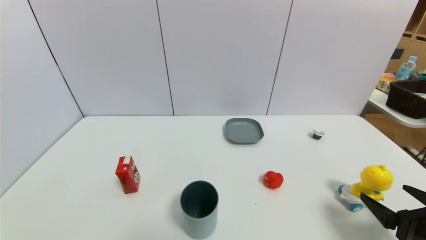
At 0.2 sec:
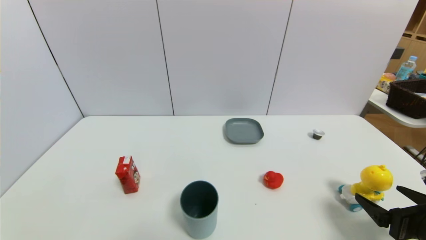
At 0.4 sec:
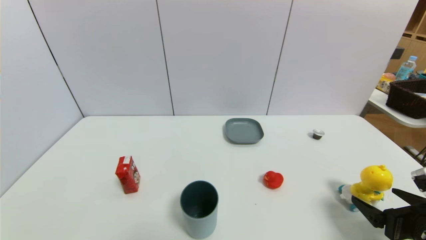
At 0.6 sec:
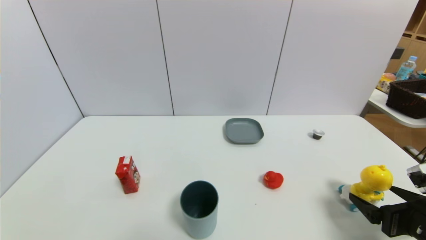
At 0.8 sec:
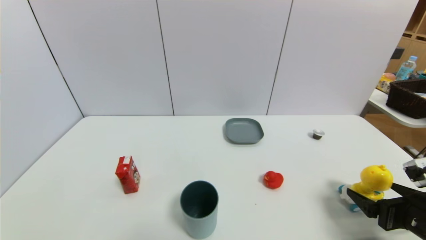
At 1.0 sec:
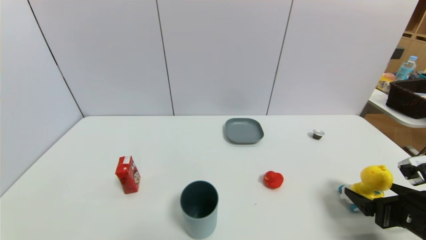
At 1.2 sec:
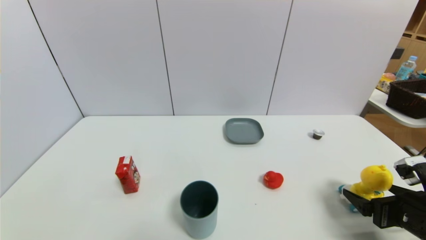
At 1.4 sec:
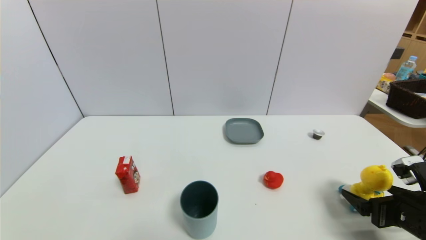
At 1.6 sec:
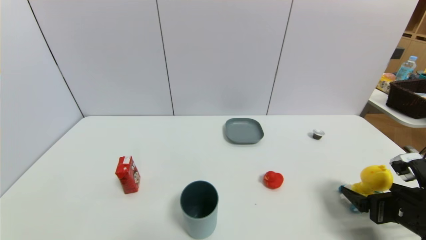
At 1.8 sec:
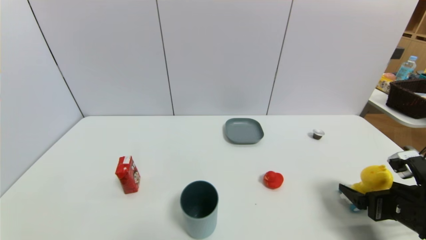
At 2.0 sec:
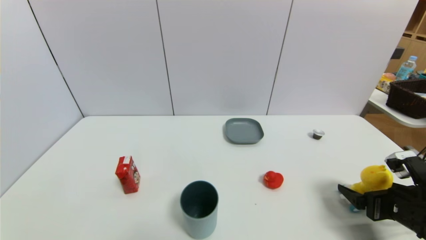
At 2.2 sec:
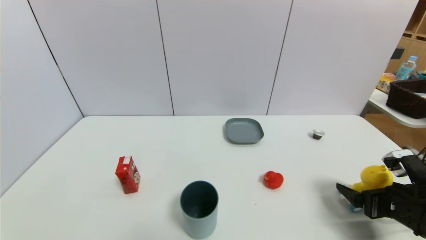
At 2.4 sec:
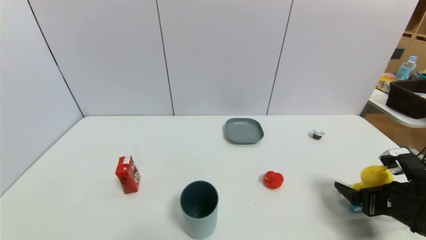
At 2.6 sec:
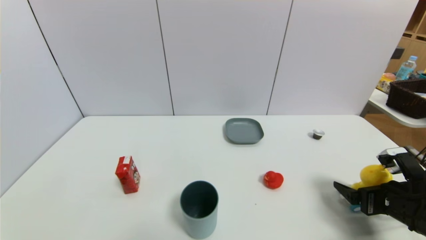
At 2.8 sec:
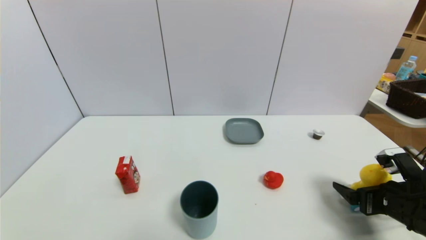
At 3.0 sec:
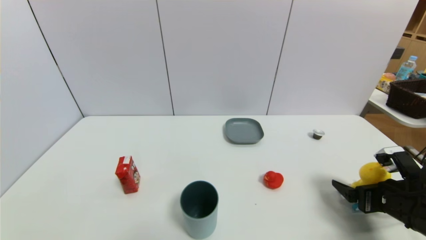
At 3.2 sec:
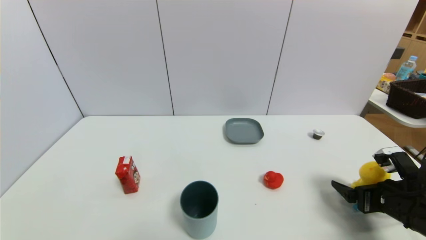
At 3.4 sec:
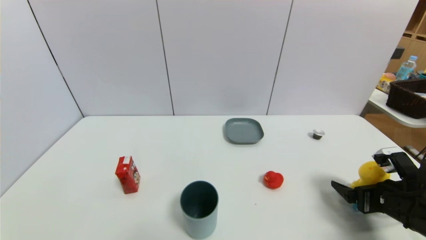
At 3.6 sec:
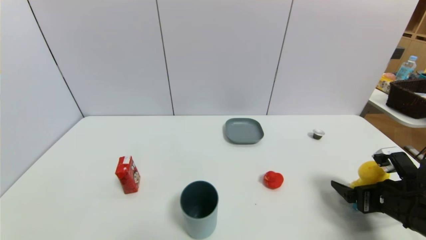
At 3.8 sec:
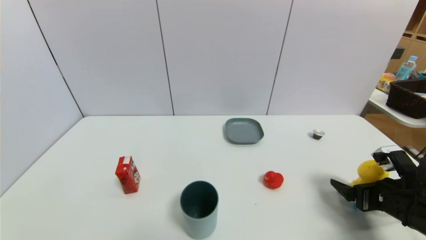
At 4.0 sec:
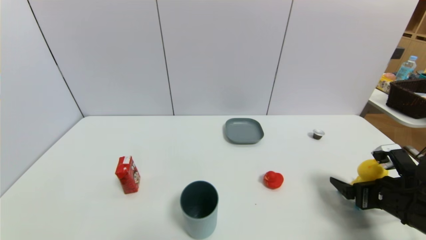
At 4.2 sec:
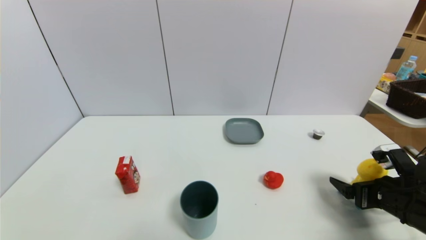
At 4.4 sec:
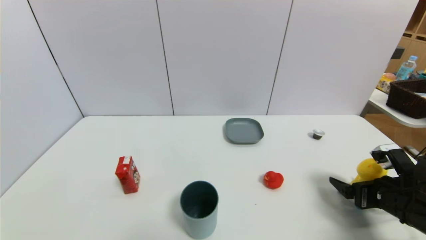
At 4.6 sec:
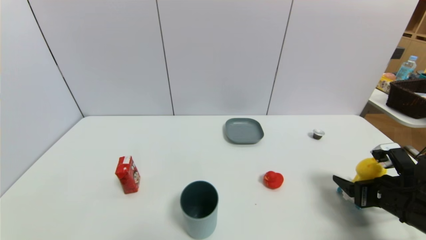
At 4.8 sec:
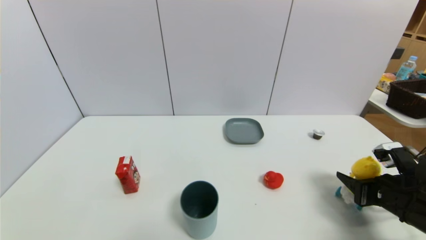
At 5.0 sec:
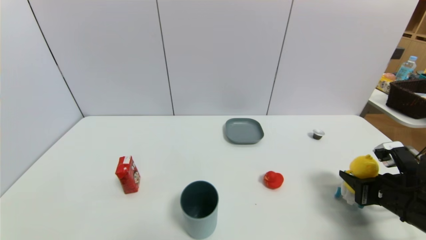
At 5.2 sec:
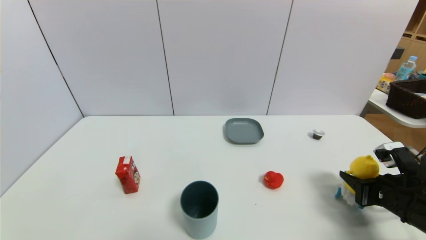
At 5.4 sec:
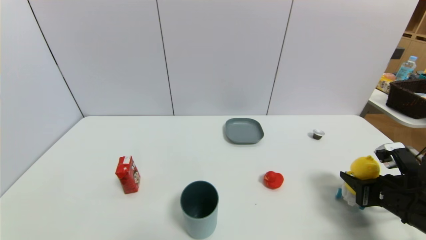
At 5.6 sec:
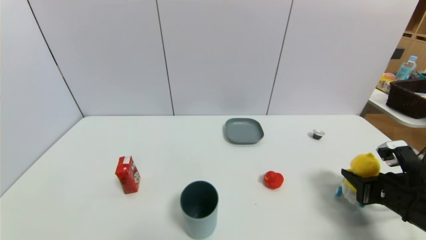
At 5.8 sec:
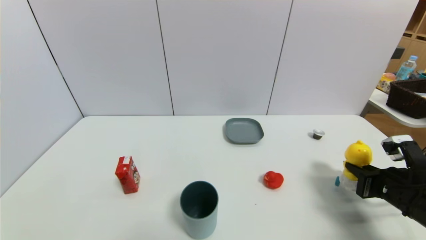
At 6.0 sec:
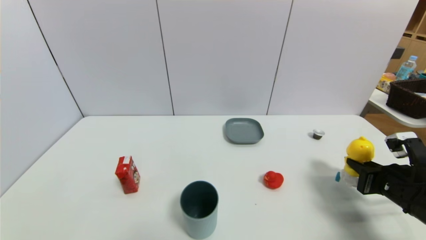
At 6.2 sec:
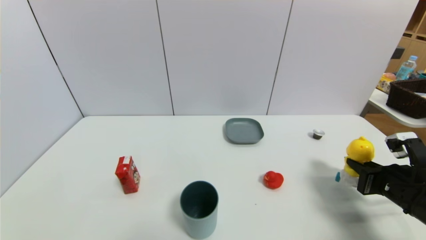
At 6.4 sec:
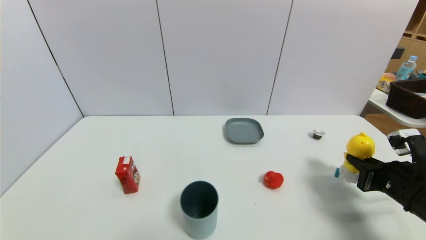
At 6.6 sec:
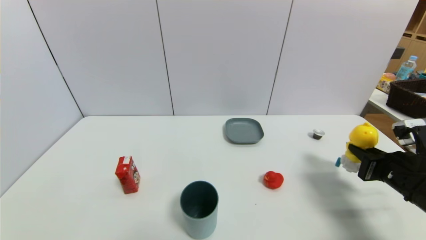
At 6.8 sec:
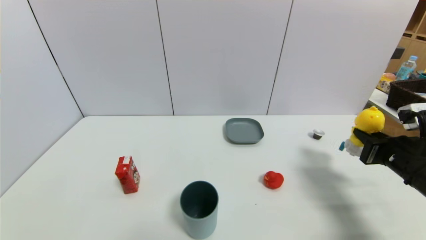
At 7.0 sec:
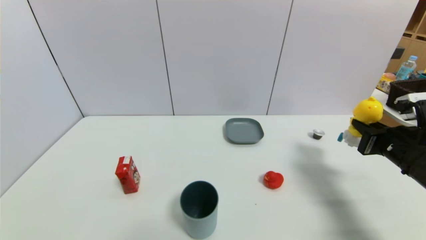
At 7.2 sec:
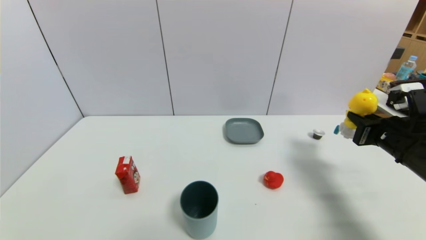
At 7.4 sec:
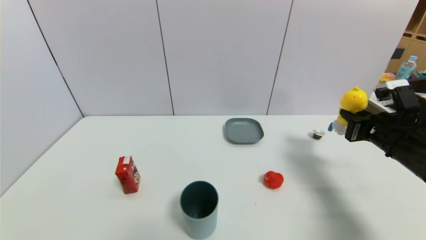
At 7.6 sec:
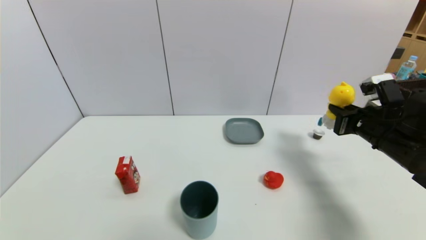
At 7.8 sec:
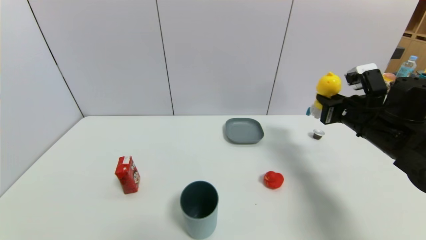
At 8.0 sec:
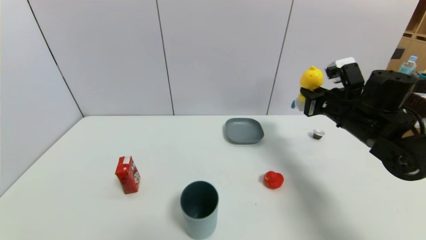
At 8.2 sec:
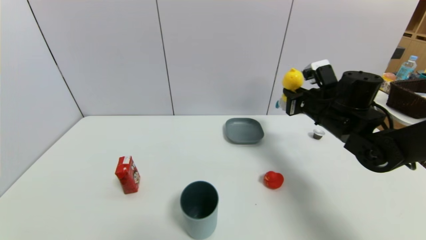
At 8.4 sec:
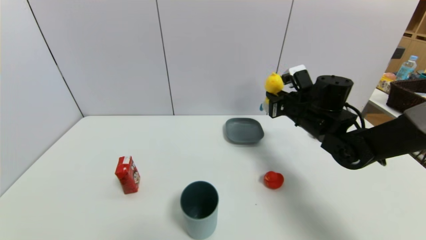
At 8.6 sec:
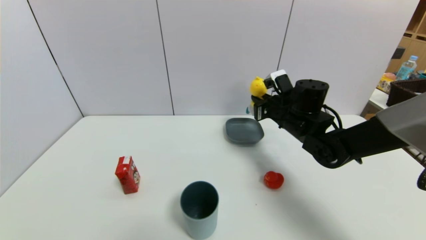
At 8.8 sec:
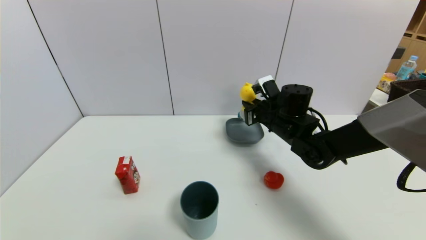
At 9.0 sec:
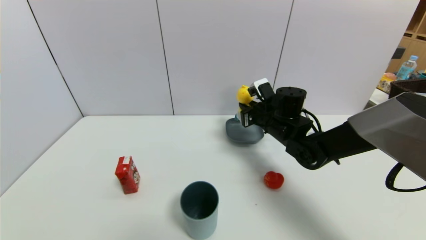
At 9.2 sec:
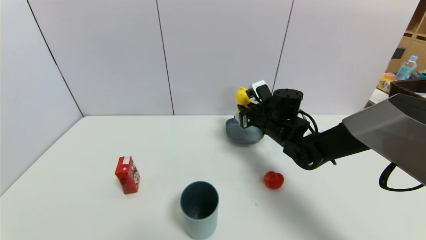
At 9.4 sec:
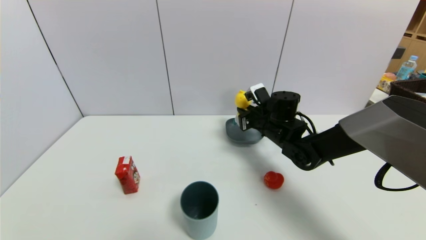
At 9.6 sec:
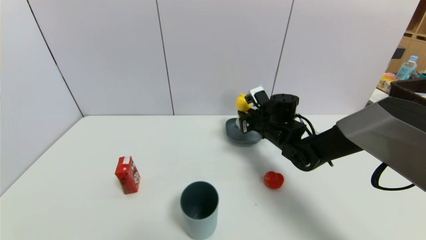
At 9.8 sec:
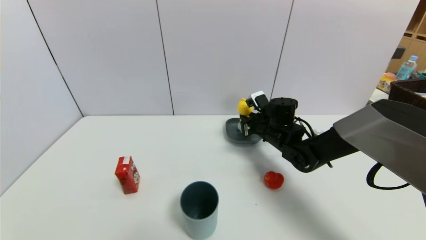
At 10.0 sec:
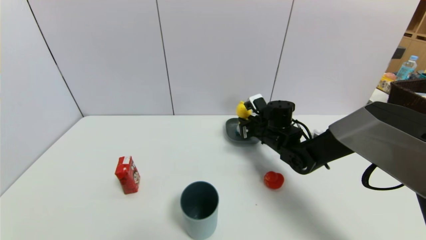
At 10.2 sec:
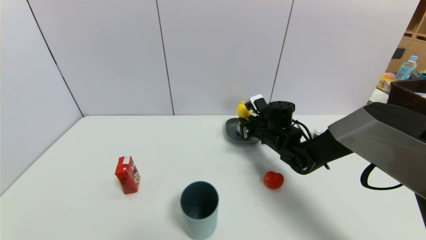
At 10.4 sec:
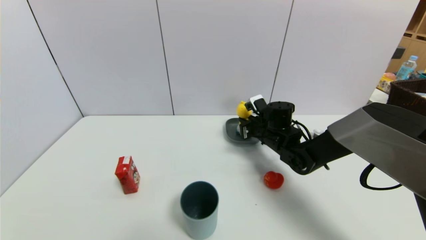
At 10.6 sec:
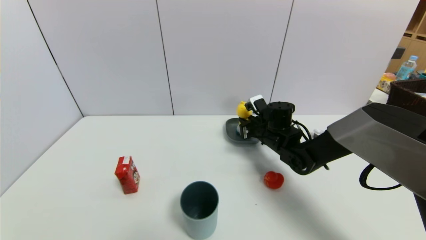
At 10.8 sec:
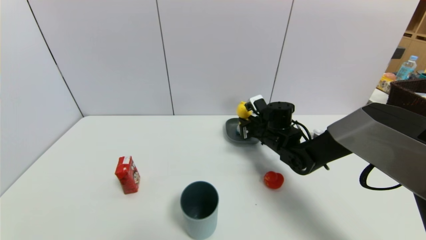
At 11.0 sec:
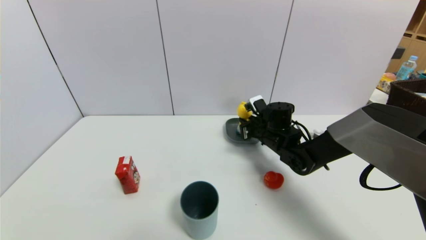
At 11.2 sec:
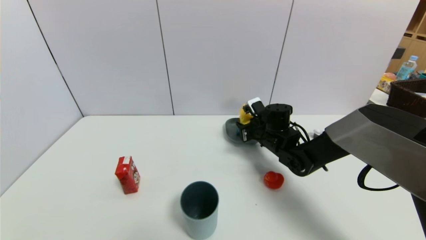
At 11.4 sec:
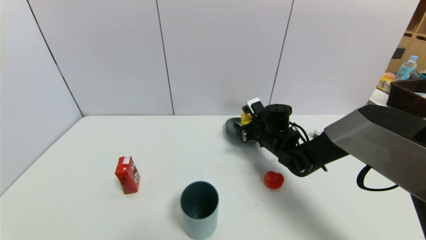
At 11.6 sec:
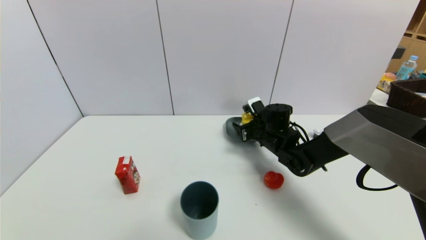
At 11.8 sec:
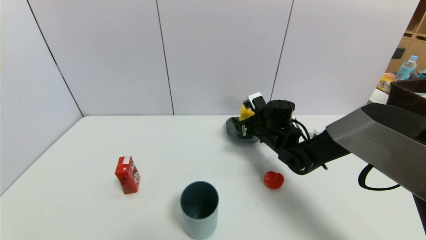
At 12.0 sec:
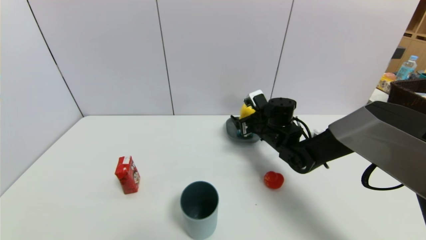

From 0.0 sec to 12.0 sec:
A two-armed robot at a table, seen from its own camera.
Task of the whole recording: use a gripper to pick the target object and place on the dish.
Step, from 0.0 sec to 4.8 sec: Grasp the duck toy with the right gripper.
From 0.0 sec to 1.6 sec: The grippers move only a little.
From 1.6 sec to 3.0 sec: There are only small adjustments of the grippers.
From 3.0 sec to 4.4 sec: Both grippers stay about where they are.
From 4.4 sec to 6.0 sec: The right gripper closes up.
From 6.0 sec to 7.6 sec: The right gripper goes roughly 10 cm forward and upward.
From 7.6 sec to 9.0 sec: The right gripper moves to the left and forward, about 20 cm.
From 9.0 sec to 10.4 sec: The right gripper shifts by approximately 5 cm.
From 10.4 sec to 12.0 sec: The right gripper opens up.

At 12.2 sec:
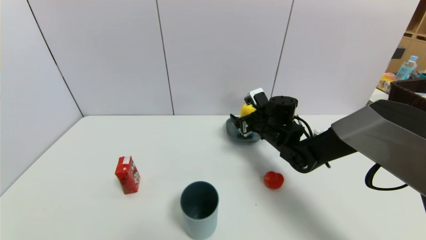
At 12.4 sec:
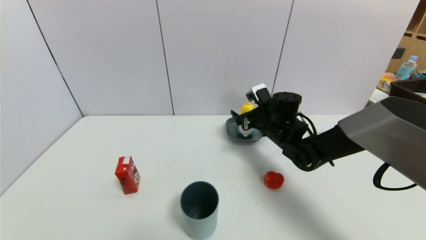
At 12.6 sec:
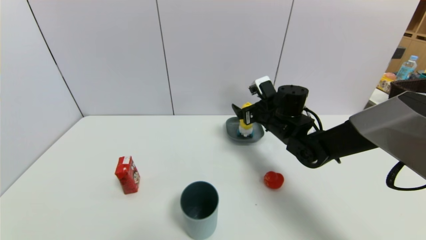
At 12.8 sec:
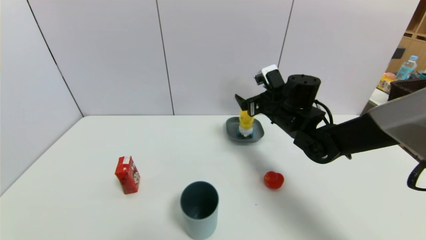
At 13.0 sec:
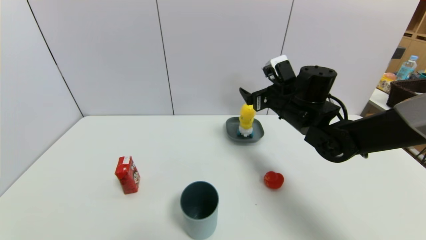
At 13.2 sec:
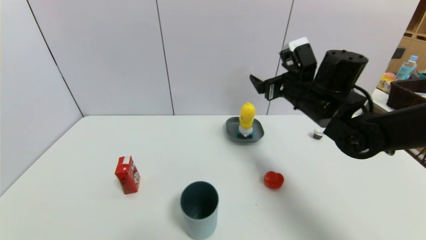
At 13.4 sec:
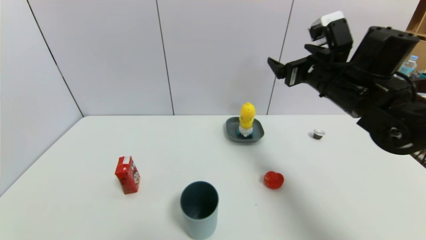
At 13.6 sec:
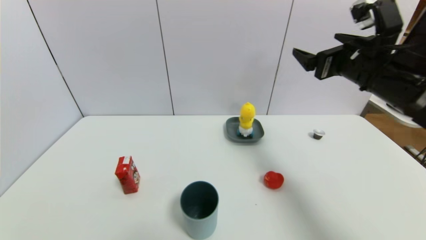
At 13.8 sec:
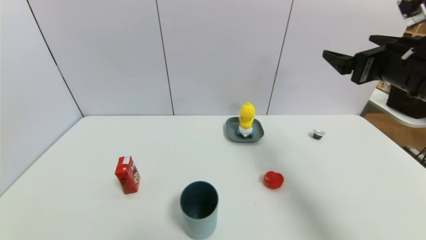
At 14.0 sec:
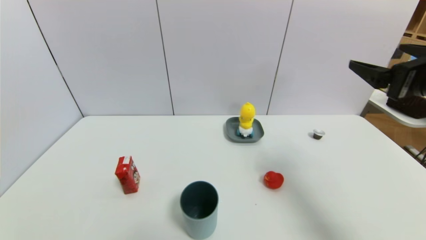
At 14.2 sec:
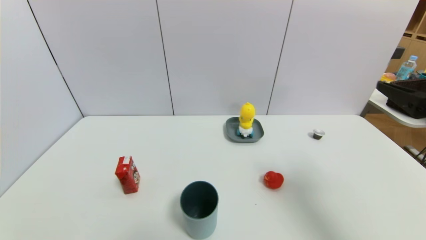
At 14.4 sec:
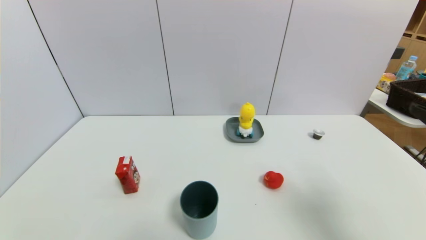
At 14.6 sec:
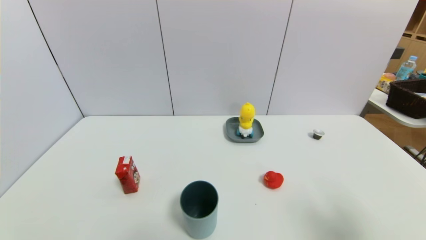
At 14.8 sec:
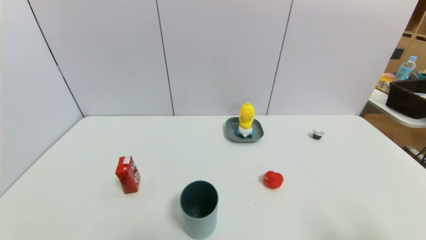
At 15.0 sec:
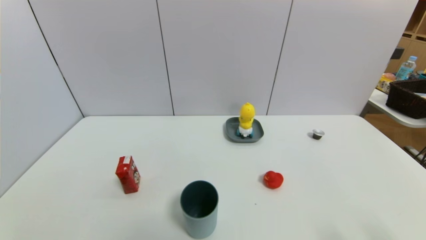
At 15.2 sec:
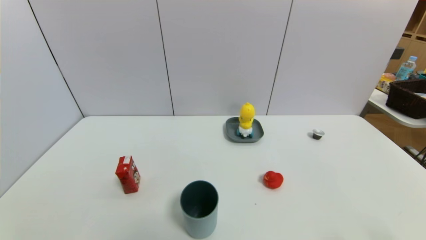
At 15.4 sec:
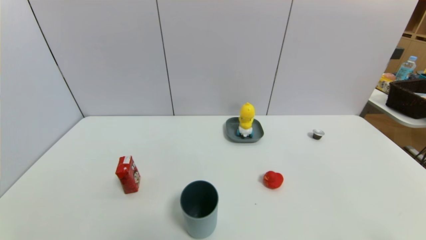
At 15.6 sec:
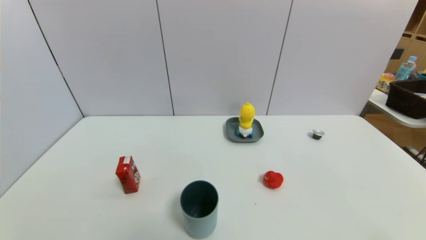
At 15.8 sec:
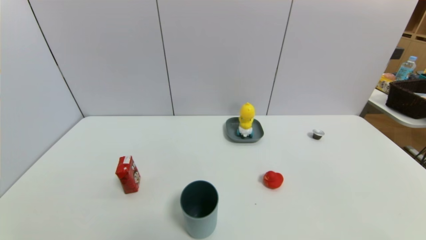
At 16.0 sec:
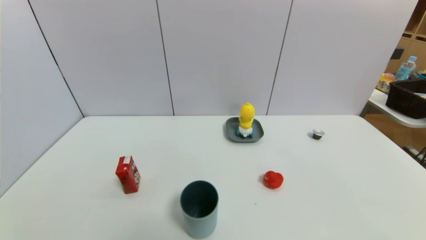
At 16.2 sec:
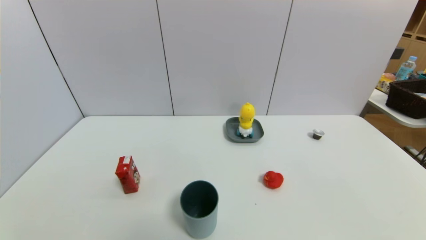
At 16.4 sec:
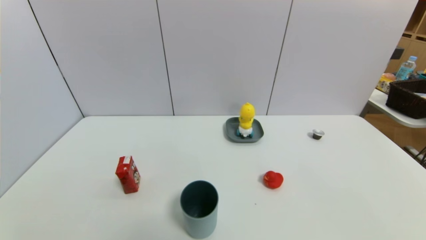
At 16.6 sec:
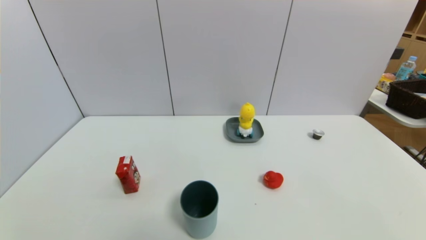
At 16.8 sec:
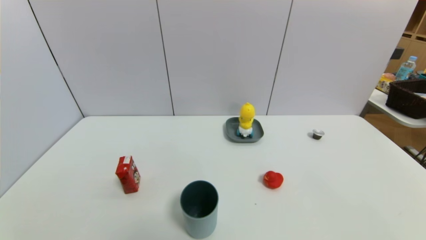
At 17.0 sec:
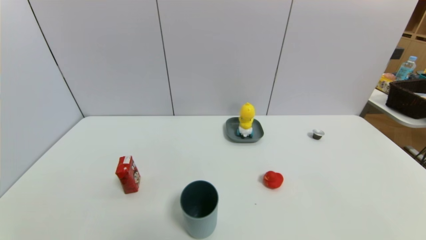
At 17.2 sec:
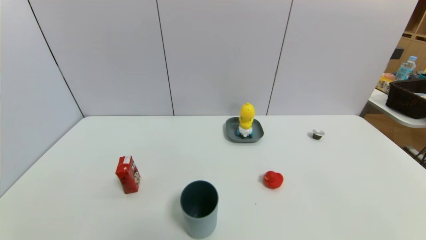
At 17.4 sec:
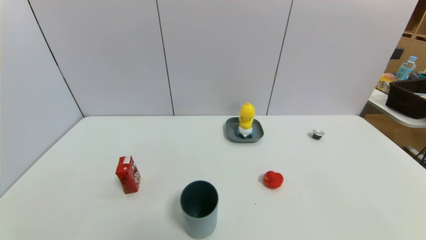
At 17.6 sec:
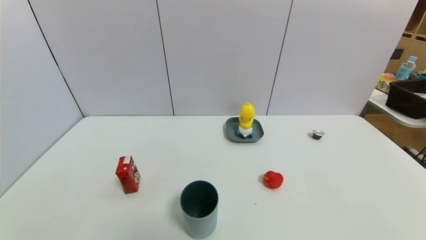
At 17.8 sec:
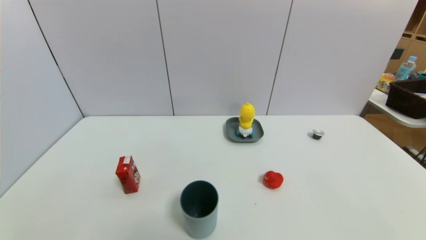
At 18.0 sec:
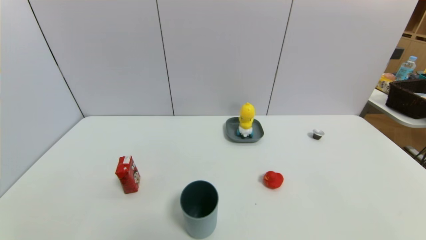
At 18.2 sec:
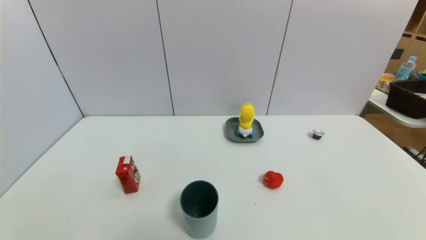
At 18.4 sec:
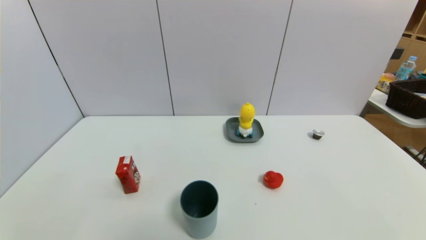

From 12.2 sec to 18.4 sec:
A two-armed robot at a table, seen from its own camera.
Task of the whole recording: use a gripper to pick the target object and place on the dish.
From 12.2 sec to 13.8 sec: The right gripper goes about 30 cm upward, backward and to the right.
From 13.8 sec to 15.4 sec: The right gripper moves backward and downward, some 30 cm.
